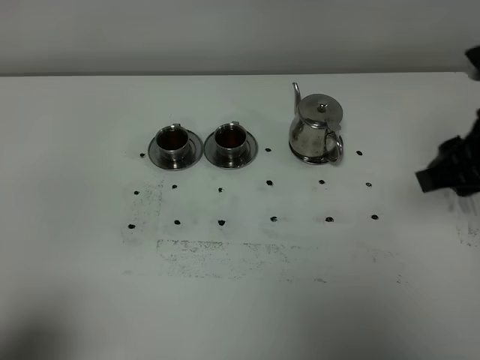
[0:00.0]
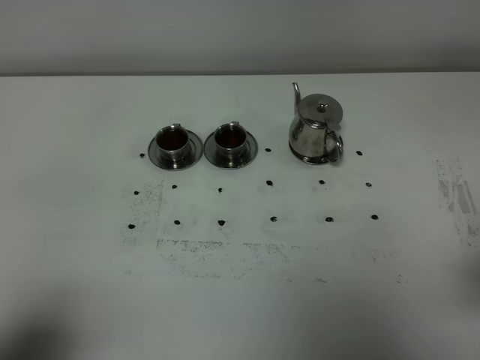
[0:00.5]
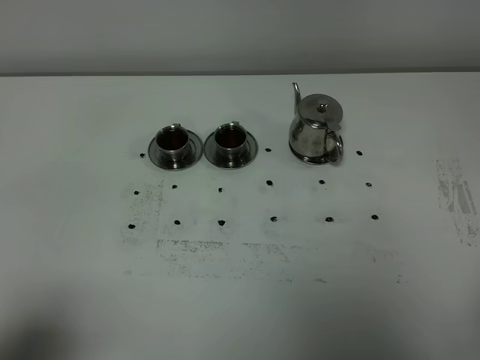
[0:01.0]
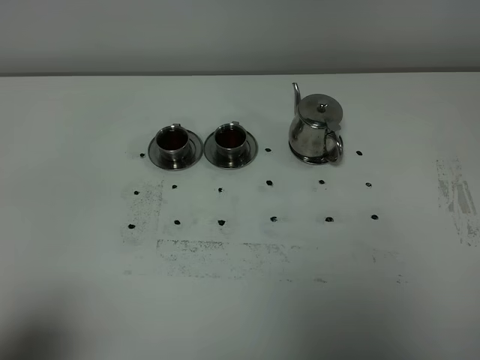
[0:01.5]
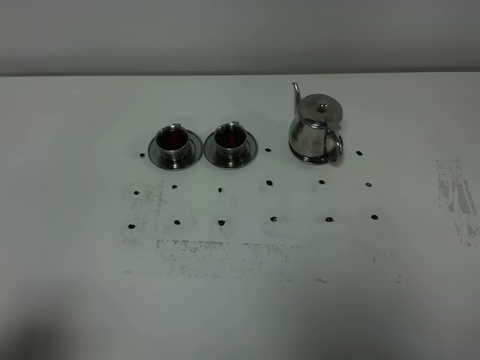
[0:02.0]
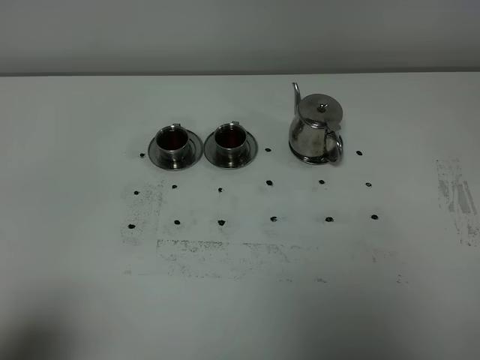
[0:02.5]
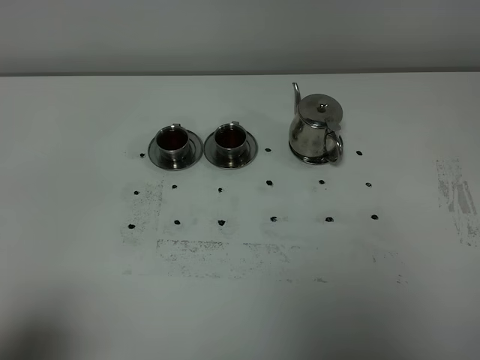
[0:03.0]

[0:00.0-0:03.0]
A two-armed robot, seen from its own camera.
Task of the whole recording: grasp the stainless steel teapot and pour the tea into the two stainless steel teacups one by one, put the stainless steel teapot back in its original place.
0:00.0 to 0:01.5: The right gripper heads backward, covering roughly 25 cm, and closes its fingers.
0:01.5 to 0:03.0: Both grippers stay put.

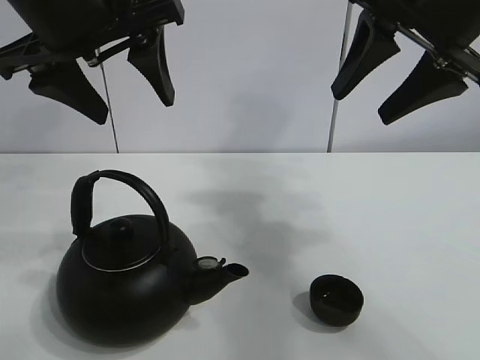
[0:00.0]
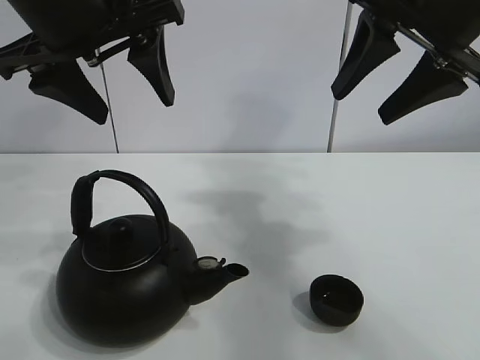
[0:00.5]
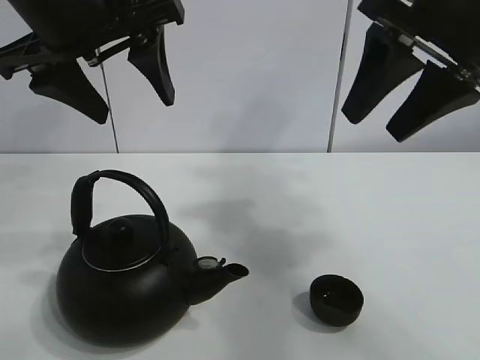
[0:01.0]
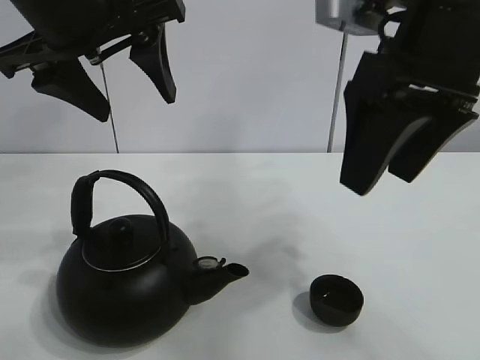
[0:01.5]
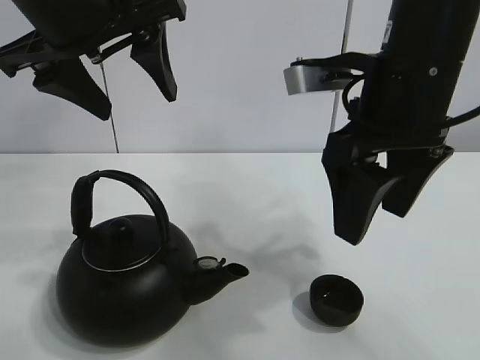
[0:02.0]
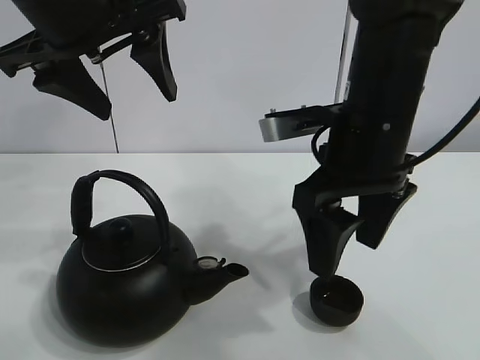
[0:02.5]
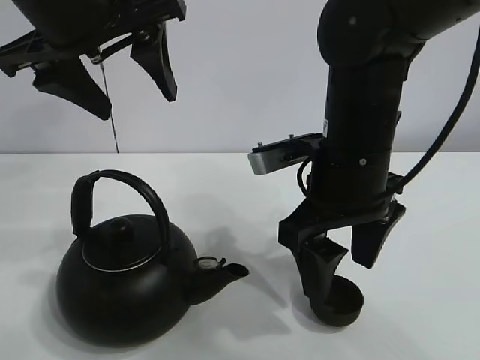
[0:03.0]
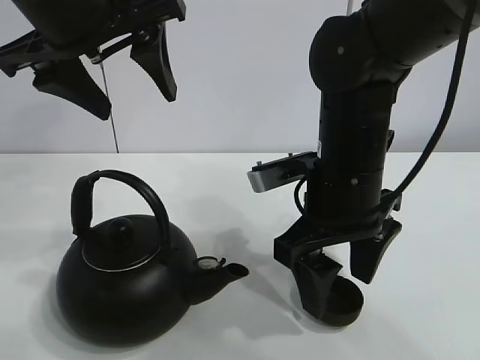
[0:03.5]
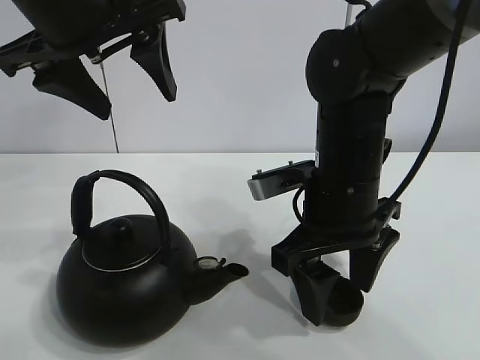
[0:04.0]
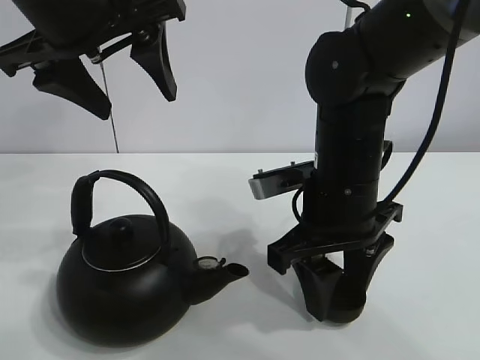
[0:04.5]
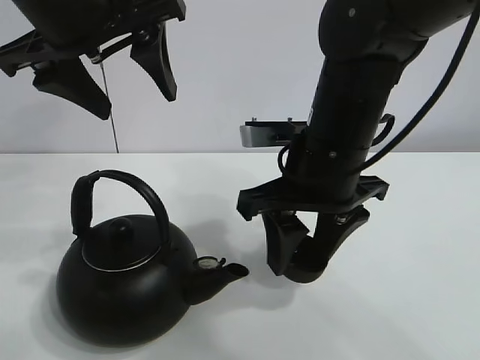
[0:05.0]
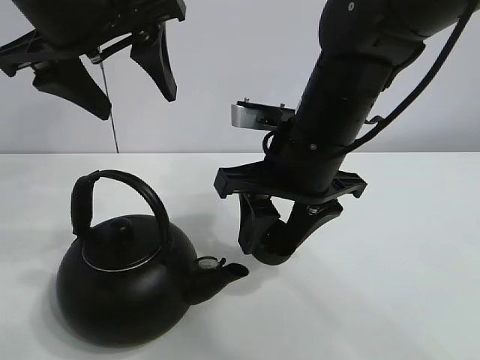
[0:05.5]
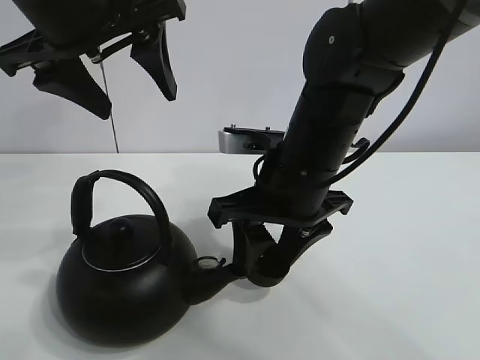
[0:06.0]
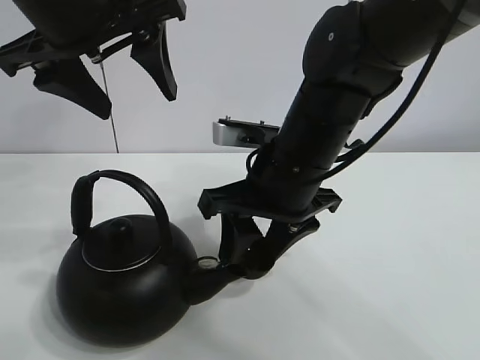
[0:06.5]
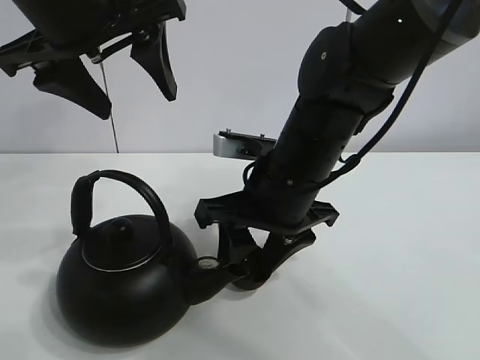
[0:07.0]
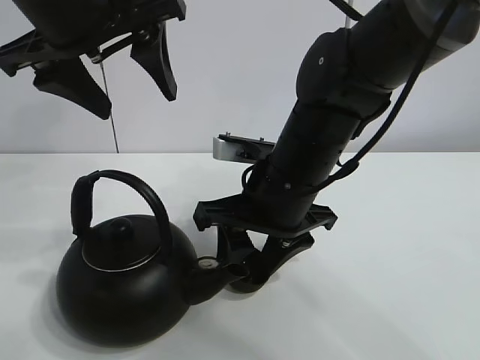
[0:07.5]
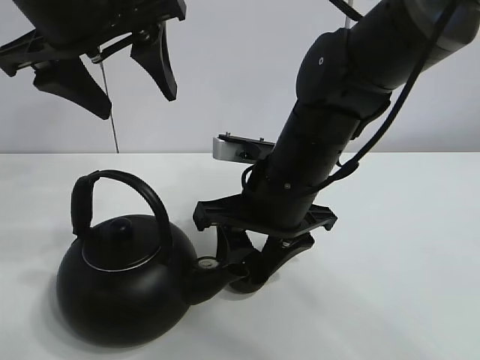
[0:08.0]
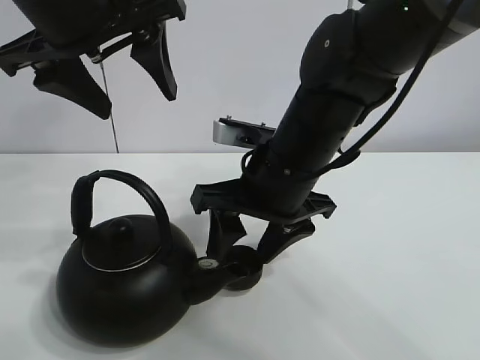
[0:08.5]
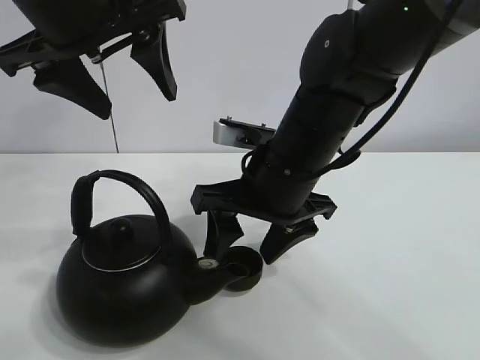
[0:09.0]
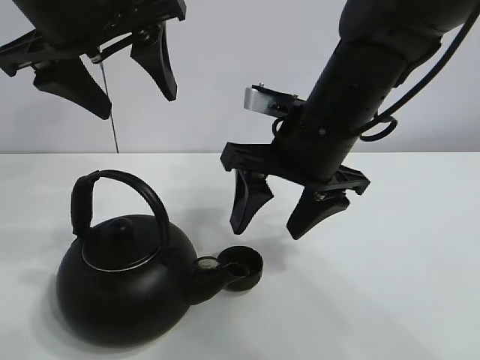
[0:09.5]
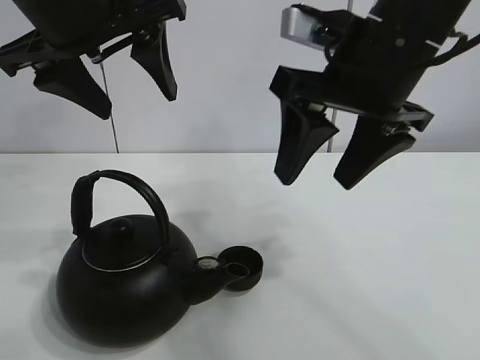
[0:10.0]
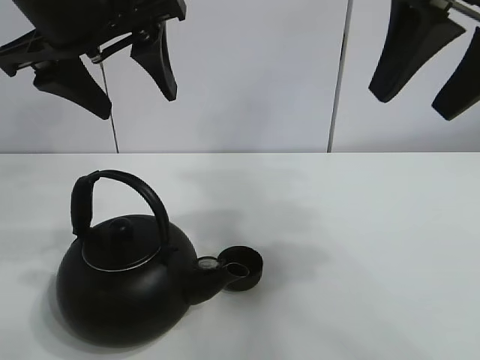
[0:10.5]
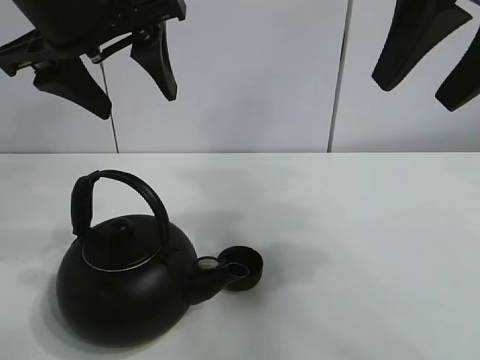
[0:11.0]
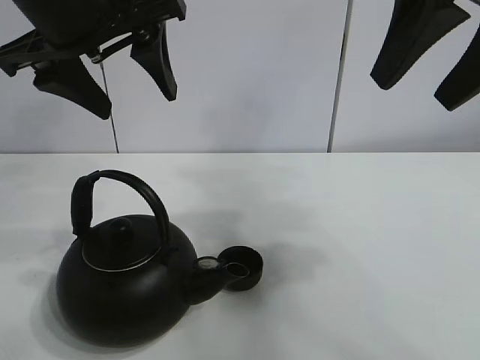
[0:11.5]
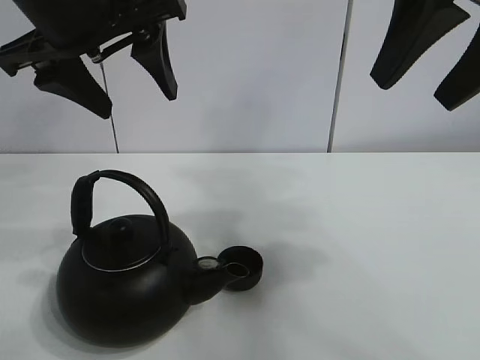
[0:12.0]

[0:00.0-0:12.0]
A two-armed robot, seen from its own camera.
Task of the whole recording: pour tea into the teacup.
Step, 0:00.0 to 0:04.0: Pick up the teacup with the right gripper.
Step, 0:04.5 to 0:08.5: Place the teacup in the center of view with the right gripper.
0:02.0 to 0:04.0: The right gripper goes roughly 10 cm downward.
0:04.0 to 0:06.0: The right gripper closes its fingers.
0:06.0 to 0:08.0: The grippers stay close to where they were, moving slightly.
0:08.0 to 0:10.0: The right gripper shifts roughly 15 cm upward and to the right, and opens up.
0:10.0 to 0:12.0: The right gripper goes some 10 cm upward and to the right.

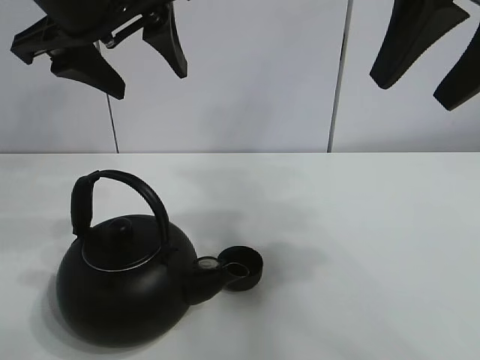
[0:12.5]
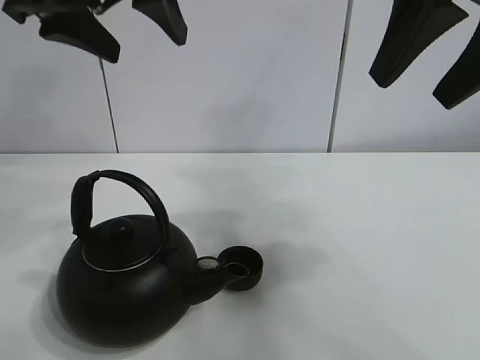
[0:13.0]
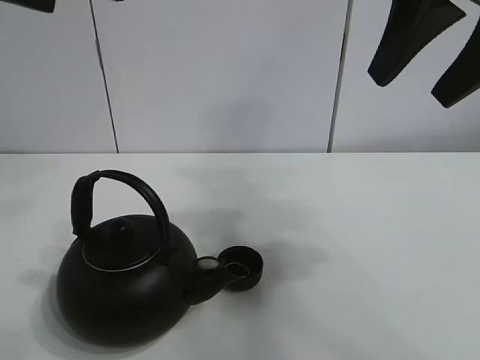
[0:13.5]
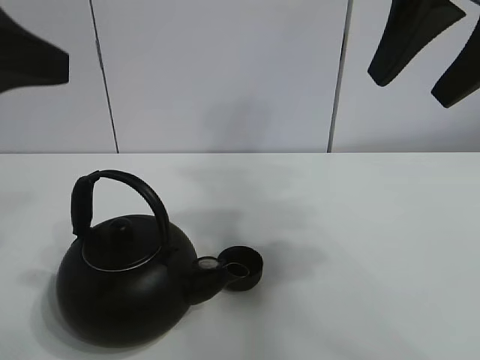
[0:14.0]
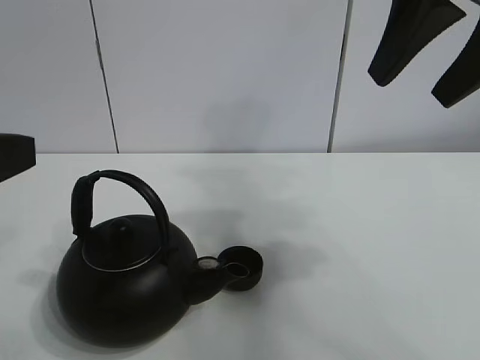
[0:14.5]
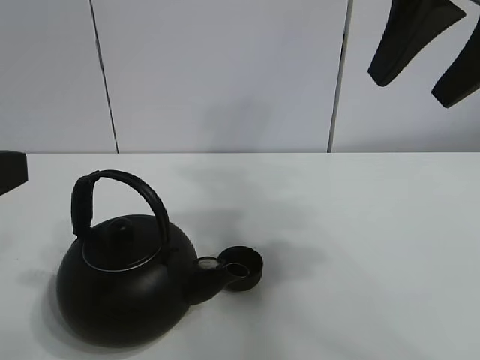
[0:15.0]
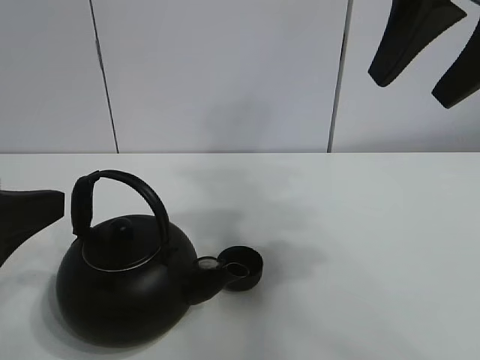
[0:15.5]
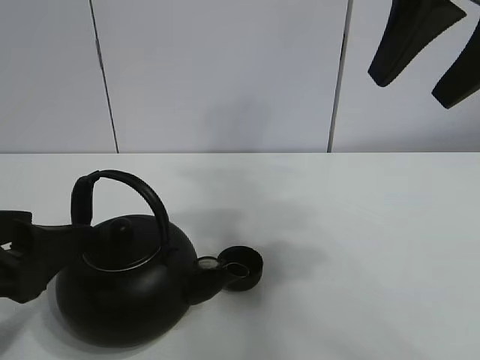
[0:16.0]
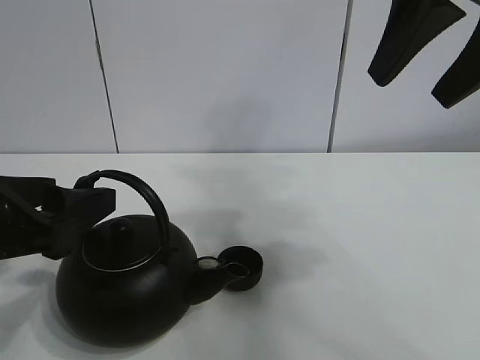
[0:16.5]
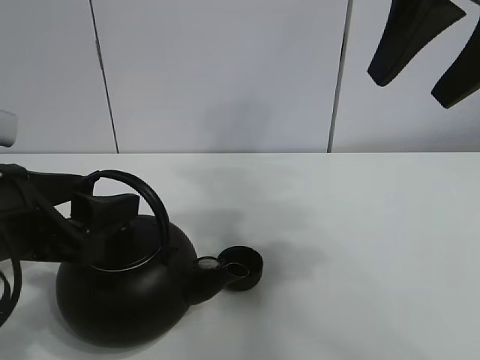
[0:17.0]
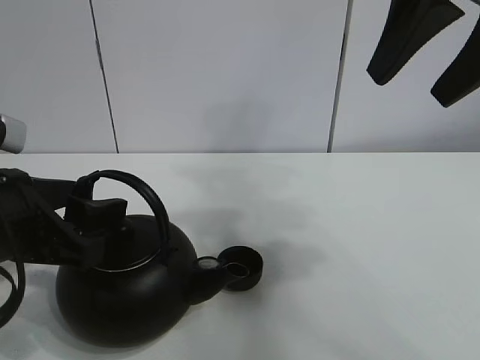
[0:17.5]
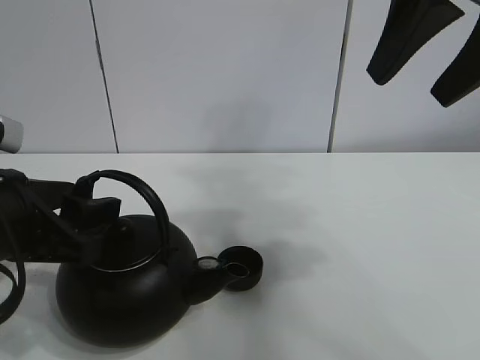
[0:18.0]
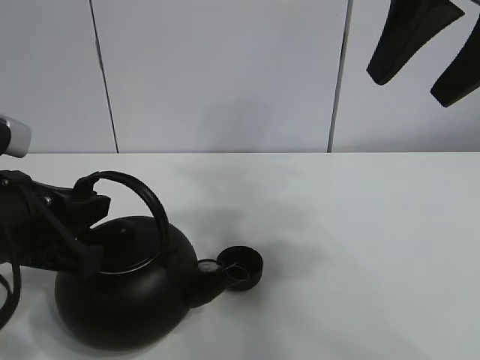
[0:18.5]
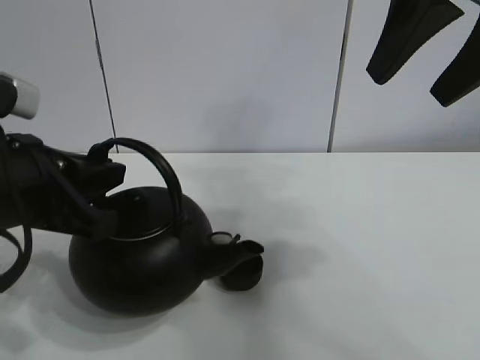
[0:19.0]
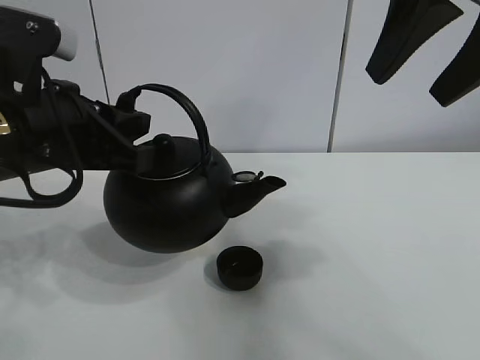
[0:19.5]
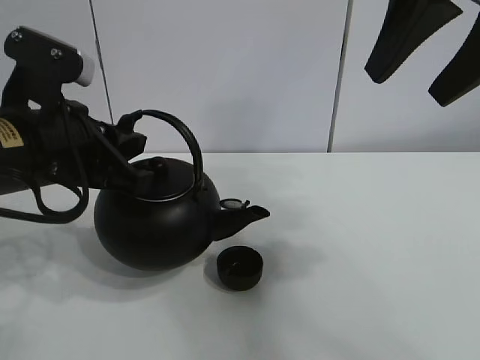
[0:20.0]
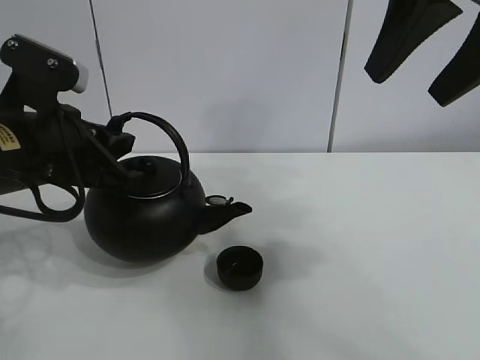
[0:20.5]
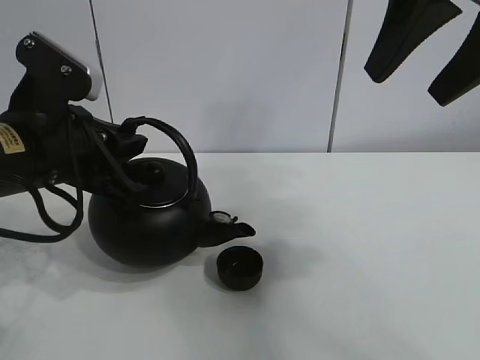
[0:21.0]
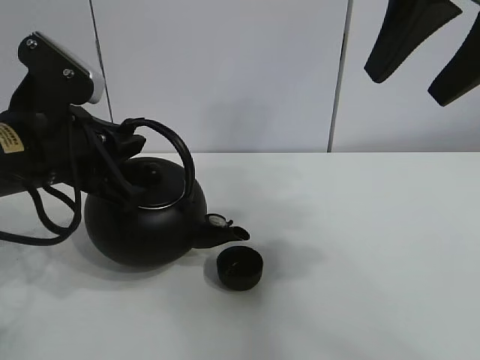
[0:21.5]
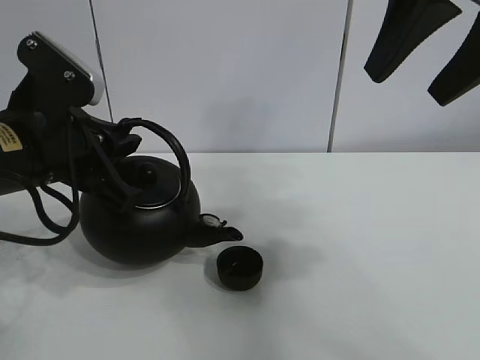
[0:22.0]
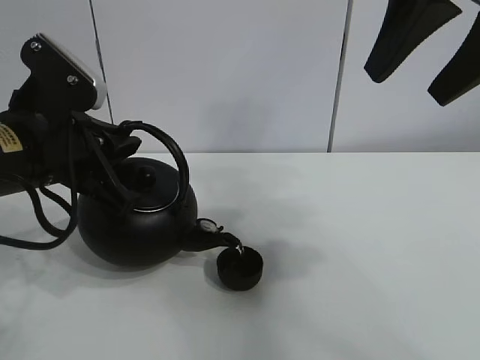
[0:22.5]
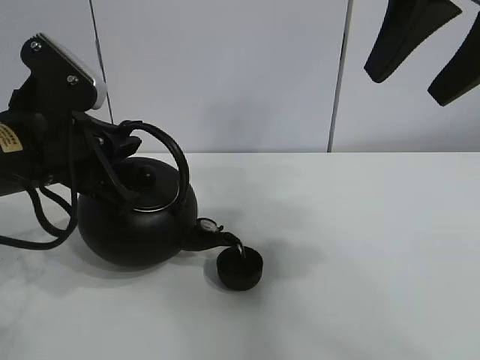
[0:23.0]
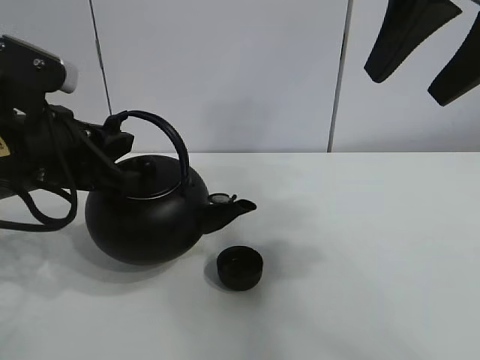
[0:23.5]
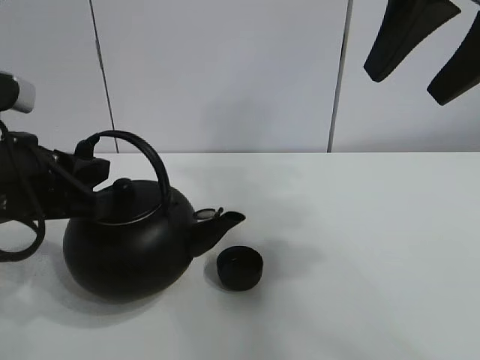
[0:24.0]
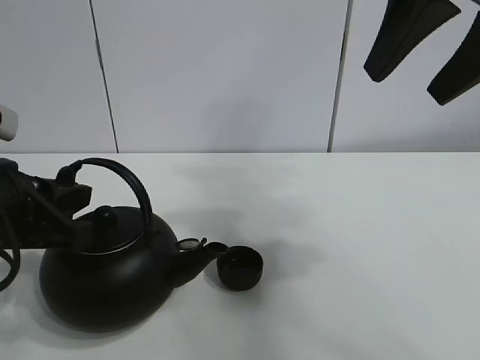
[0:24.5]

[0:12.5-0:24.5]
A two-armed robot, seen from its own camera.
Task of the whole recording: pour tea into the teacup.
Step, 0:12.5 to 0:18.0: Pick up the teapot with the left gripper.
Step, 0:19.0 to 0:23.0: Pour tea into the teacup with the left gripper.
0:12.5 to 0:14.5: The left gripper goes roughly 20 cm backward, to the left and downward.
0:14.5 to 0:16.5: The left gripper moves downward, about 5 cm.
0:16.5 to 0:18.5: The left gripper closes up.
0:18.5 to 0:20.5: The left gripper goes approximately 5 cm forward.
0:20.5 to 0:22.5: The grippers move only a little.
0:22.5 to 0:24.5: The left gripper moves backward, about 5 cm.
